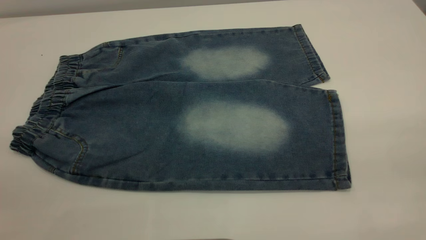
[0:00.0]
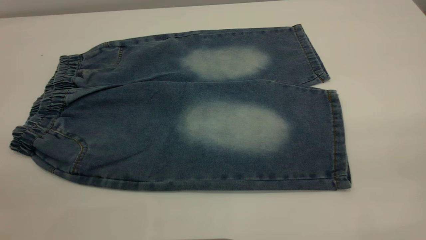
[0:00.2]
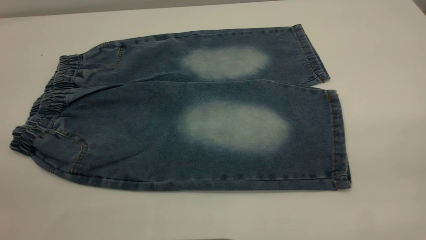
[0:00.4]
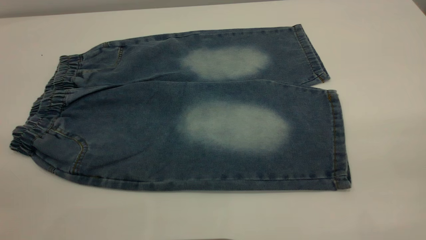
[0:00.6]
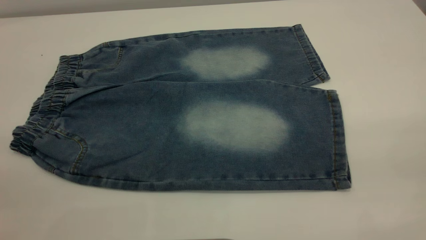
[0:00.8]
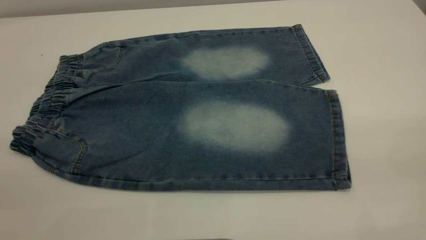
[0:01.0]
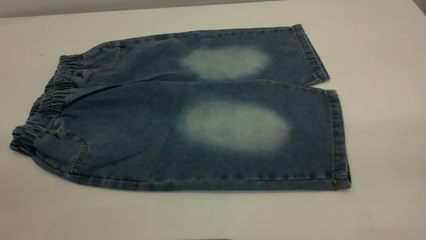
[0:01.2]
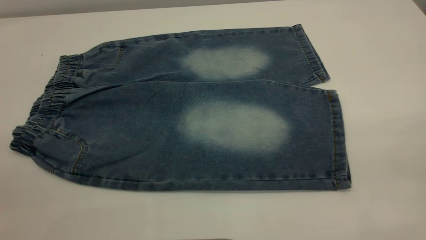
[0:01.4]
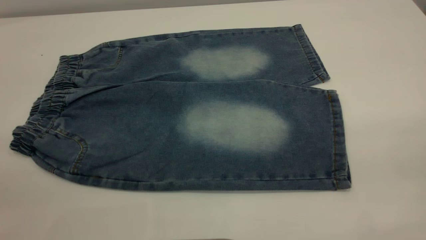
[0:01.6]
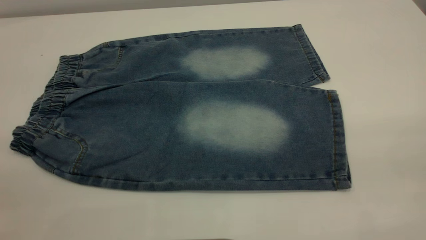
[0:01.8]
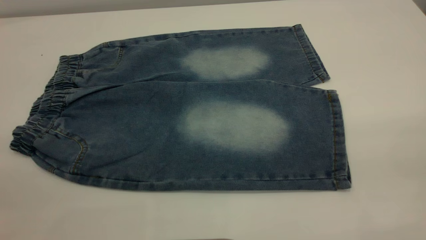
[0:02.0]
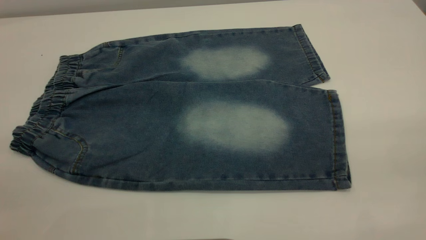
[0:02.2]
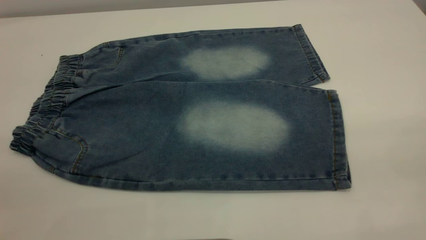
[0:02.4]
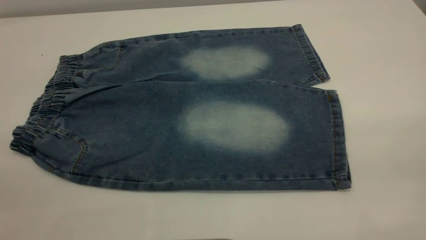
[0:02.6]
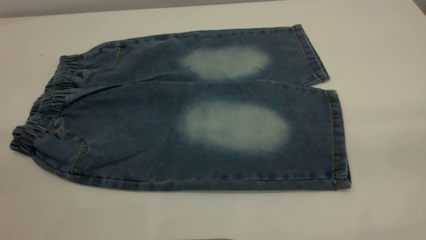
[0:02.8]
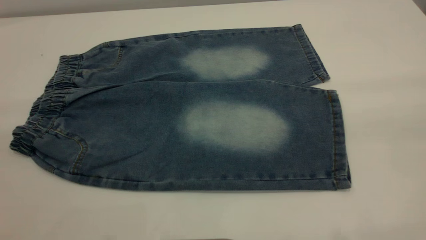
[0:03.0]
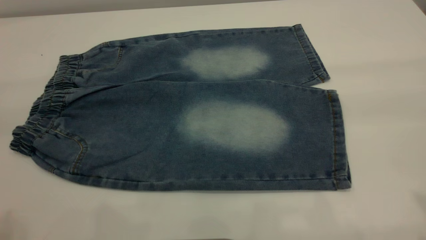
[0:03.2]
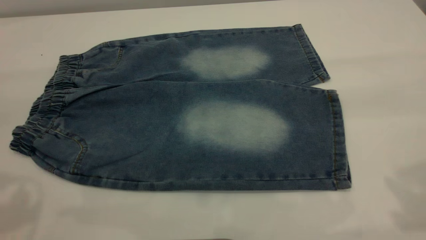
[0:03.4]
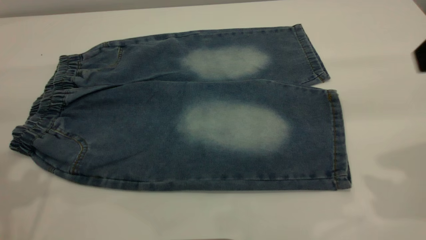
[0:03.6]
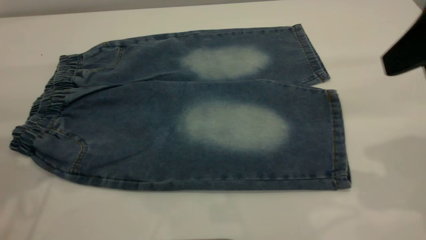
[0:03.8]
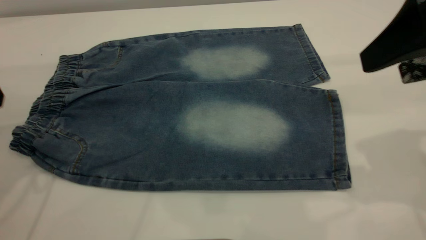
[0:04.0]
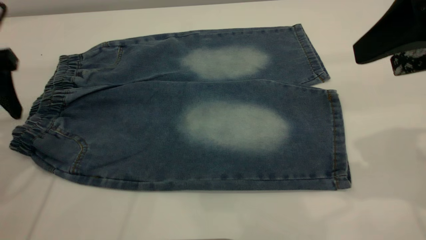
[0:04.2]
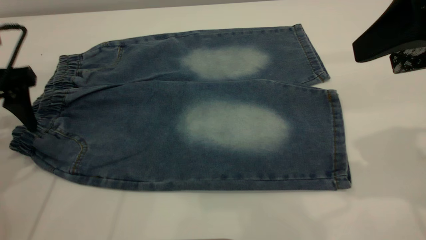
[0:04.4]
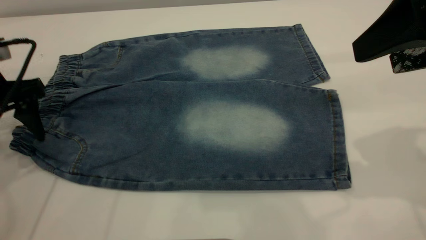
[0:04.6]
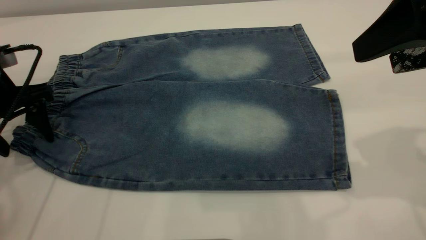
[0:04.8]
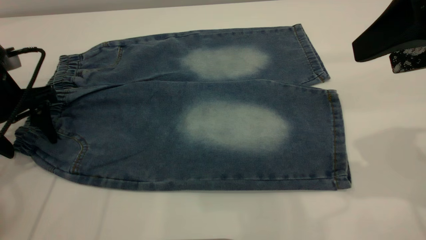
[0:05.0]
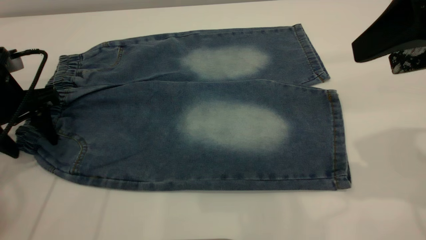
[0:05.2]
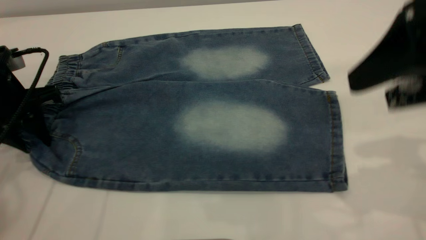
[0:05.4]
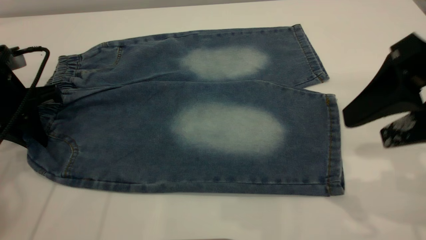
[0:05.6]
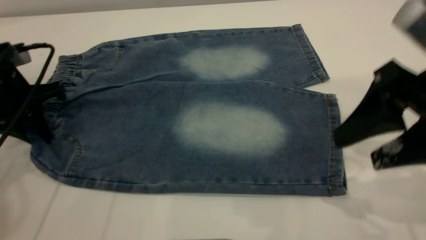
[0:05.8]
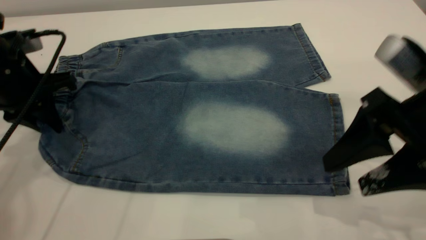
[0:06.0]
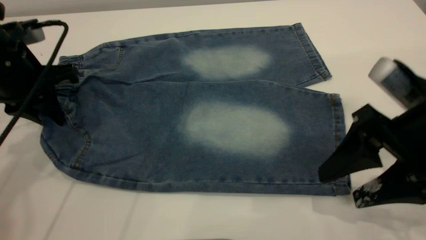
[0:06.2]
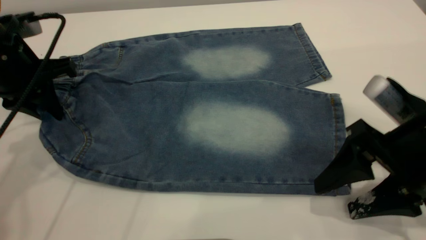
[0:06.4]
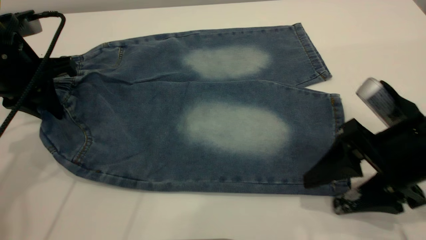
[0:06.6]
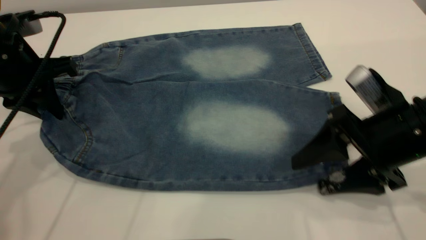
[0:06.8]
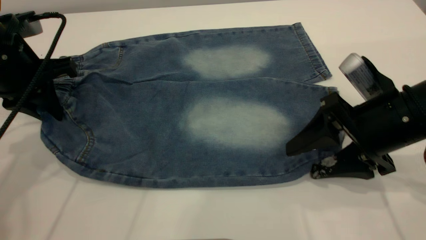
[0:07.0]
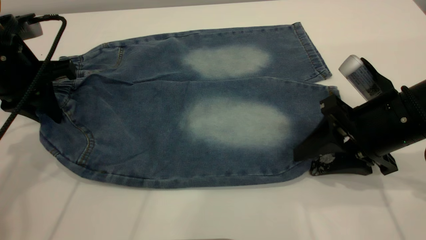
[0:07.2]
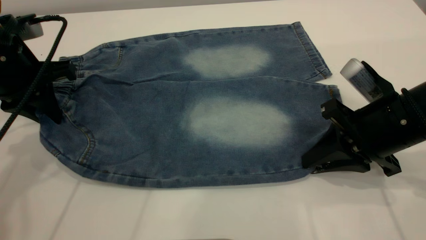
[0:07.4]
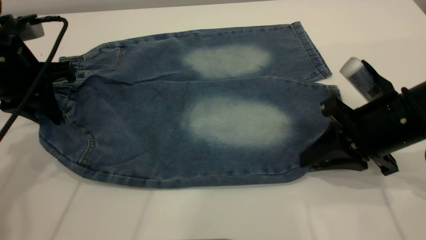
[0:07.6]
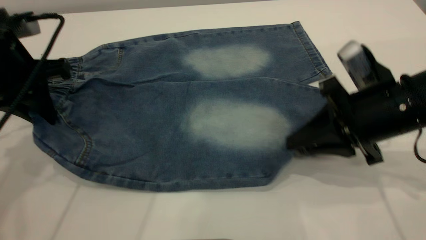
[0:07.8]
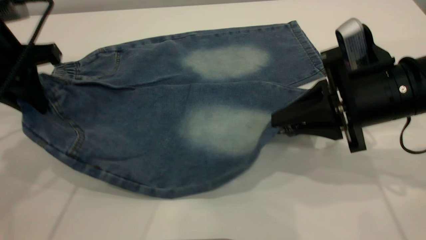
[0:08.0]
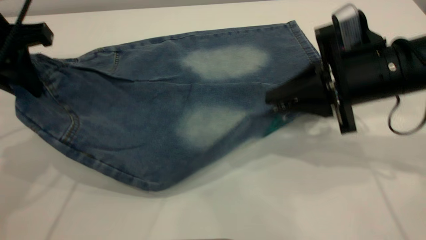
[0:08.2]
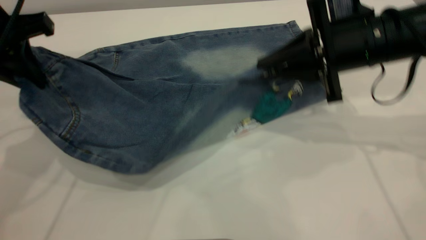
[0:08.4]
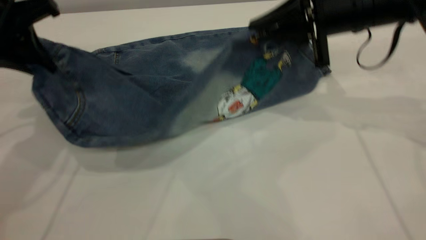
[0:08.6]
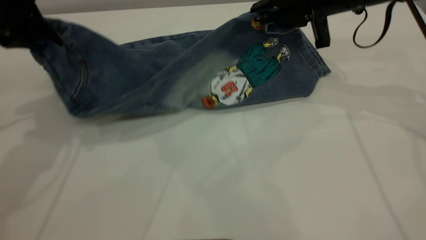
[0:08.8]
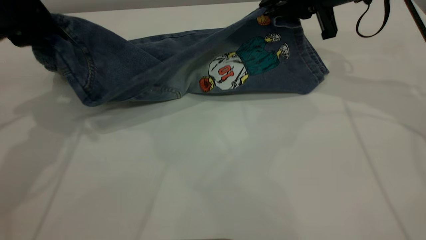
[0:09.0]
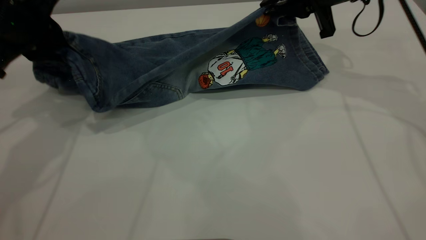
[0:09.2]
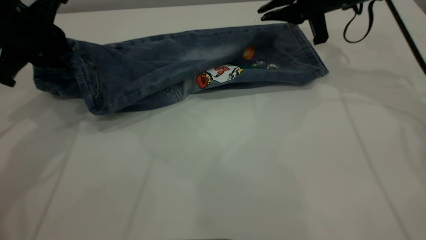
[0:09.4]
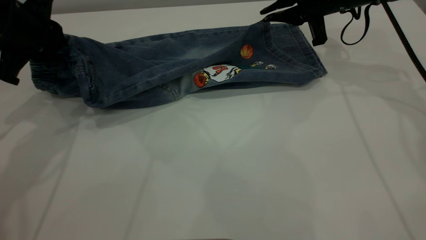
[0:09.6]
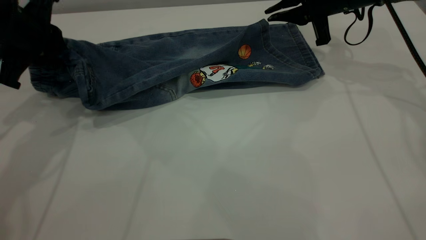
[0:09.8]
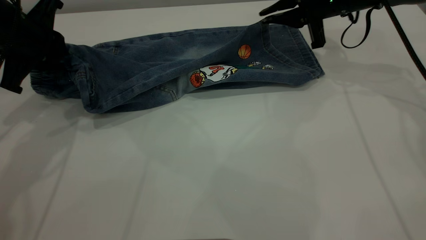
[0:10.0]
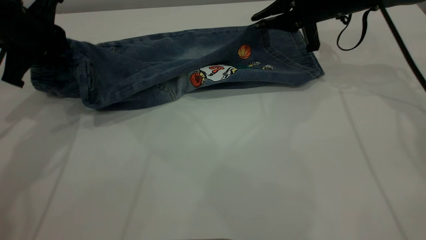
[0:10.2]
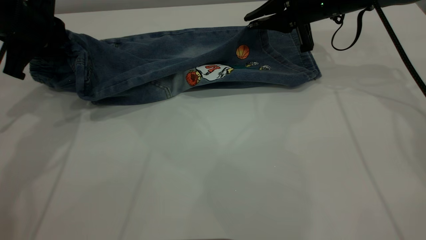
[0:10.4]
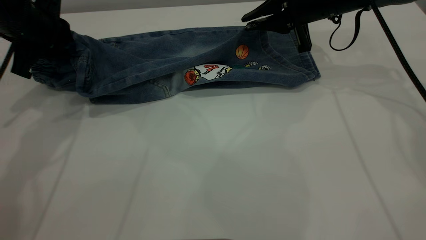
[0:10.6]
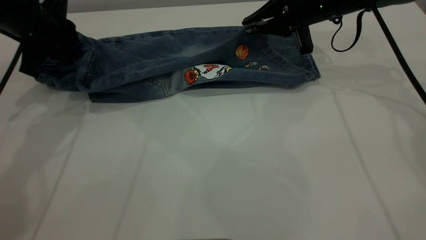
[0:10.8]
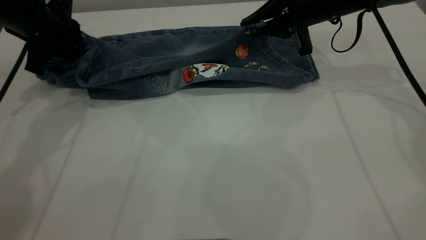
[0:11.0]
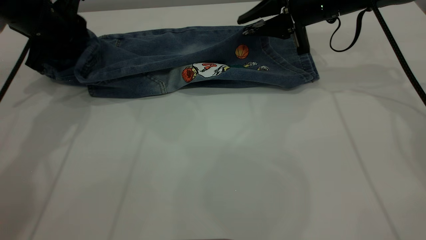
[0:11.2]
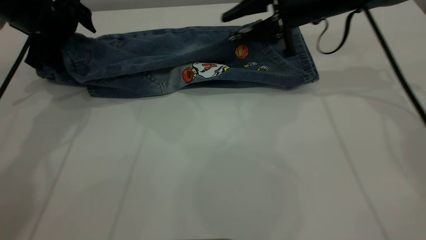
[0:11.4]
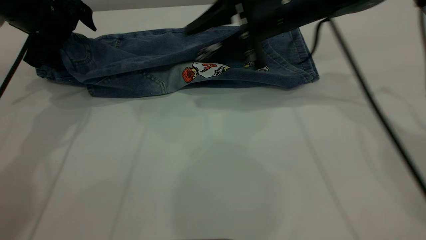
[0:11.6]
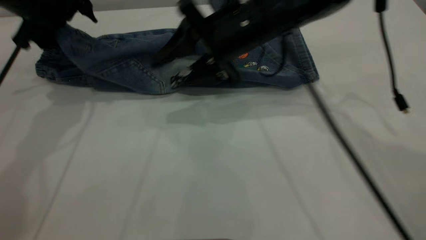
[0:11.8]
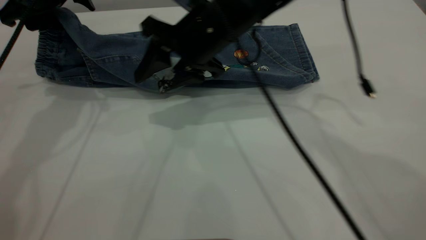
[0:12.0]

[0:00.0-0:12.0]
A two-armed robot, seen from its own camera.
0:00.0 to 0:01.6: The two grippers keep their place.
0:03.0 to 0:04.4: The left gripper shifts approximately 30 cm forward and downward, while the right gripper shifts roughly 15 cm forward and downward.
0:04.4 to 0:06.0: The left gripper closes. The right gripper moves downward, roughly 10 cm.
0:06.0 to 0:07.6: The right gripper travels downward and forward by roughly 10 cm, and closes up.
0:07.6 to 0:09.0: The left gripper goes roughly 5 cm upward; the right gripper shifts about 20 cm forward and upward.
0:09.0 to 0:10.4: The right gripper ends up roughly 5 cm from where it was. The left gripper shifts by about 5 cm.
0:10.4 to 0:12.0: The right gripper goes approximately 20 cm to the left, and opens. Meanwhile the left gripper shifts by approximately 5 cm, and opens its fingers.

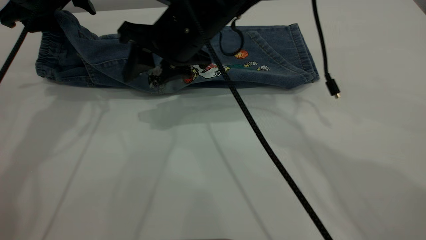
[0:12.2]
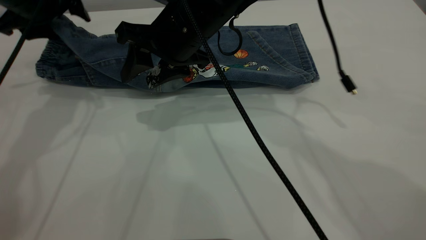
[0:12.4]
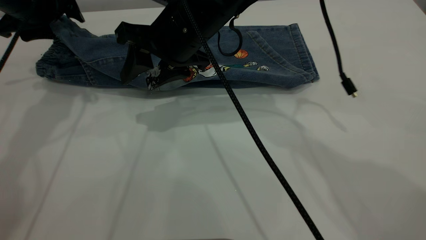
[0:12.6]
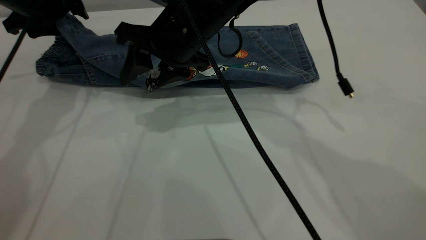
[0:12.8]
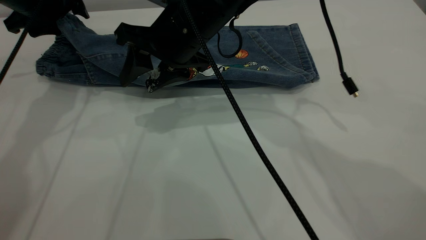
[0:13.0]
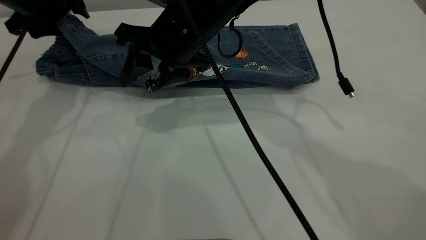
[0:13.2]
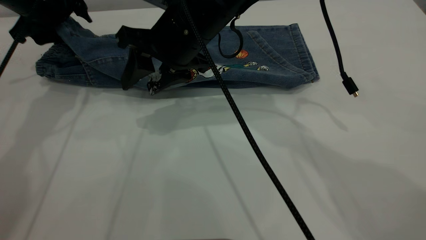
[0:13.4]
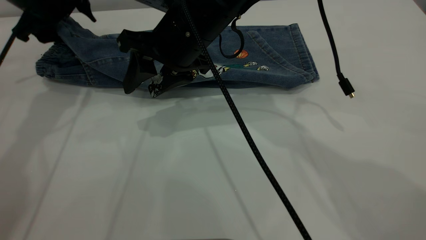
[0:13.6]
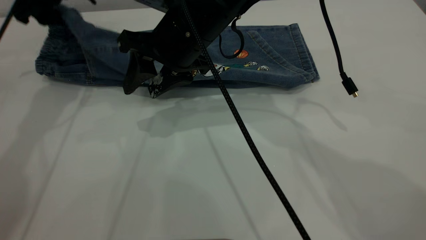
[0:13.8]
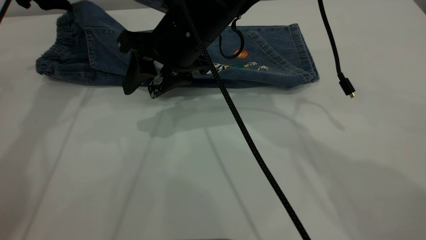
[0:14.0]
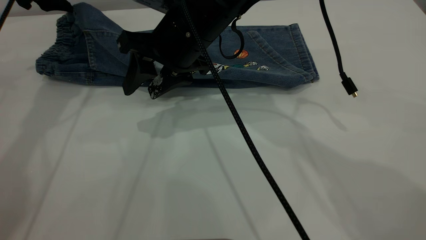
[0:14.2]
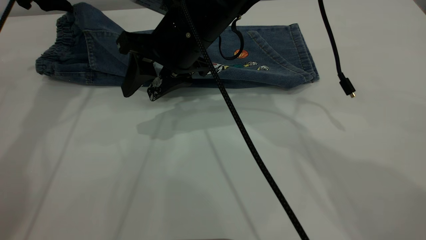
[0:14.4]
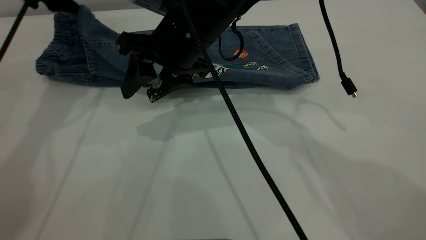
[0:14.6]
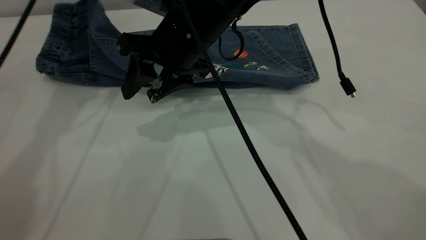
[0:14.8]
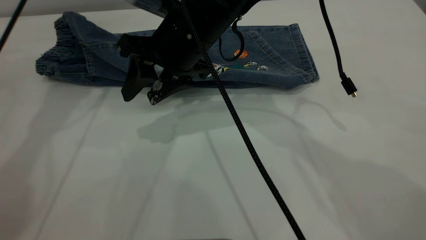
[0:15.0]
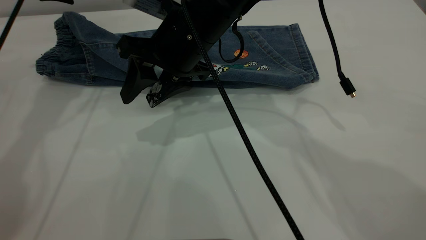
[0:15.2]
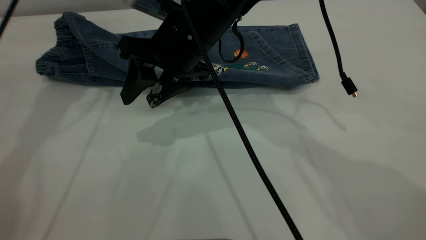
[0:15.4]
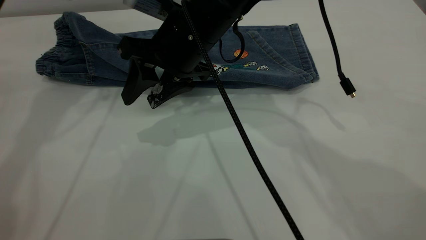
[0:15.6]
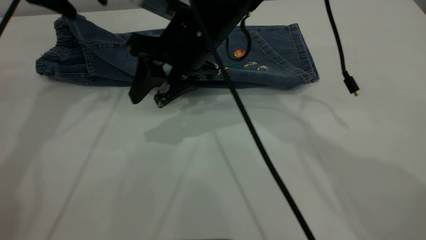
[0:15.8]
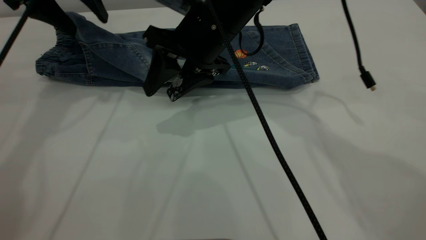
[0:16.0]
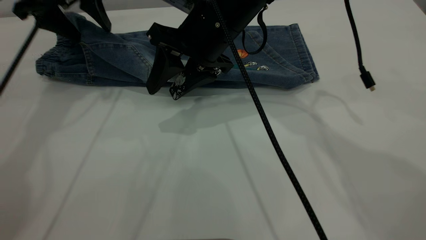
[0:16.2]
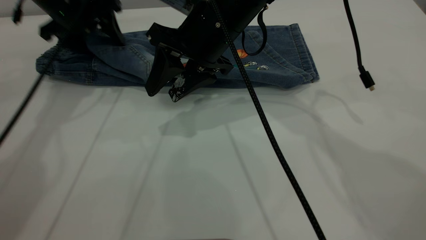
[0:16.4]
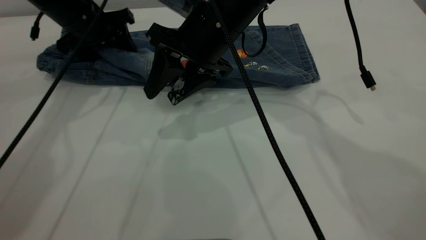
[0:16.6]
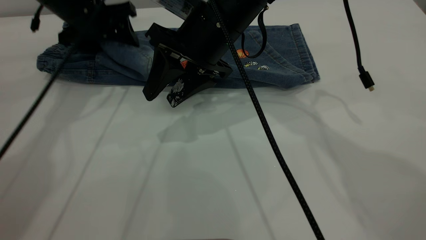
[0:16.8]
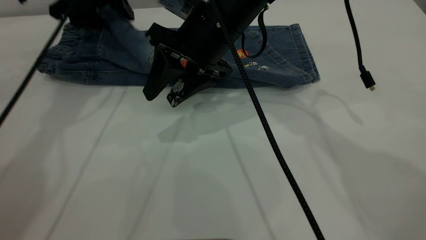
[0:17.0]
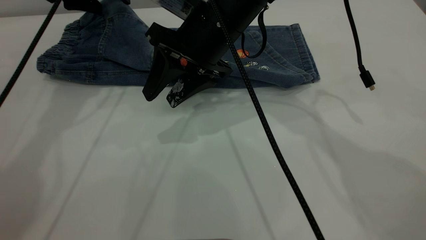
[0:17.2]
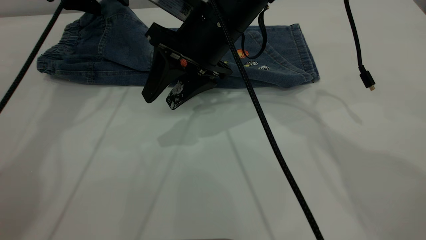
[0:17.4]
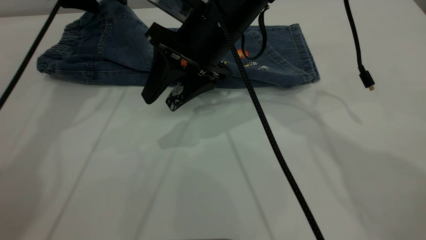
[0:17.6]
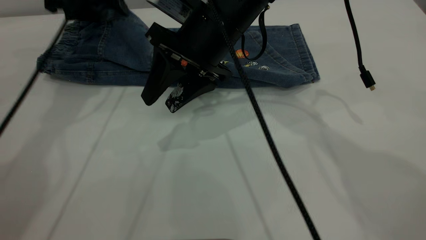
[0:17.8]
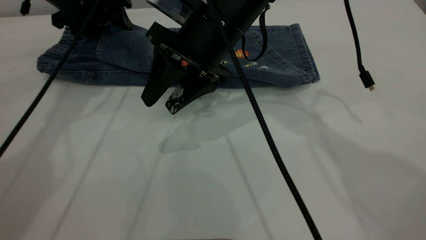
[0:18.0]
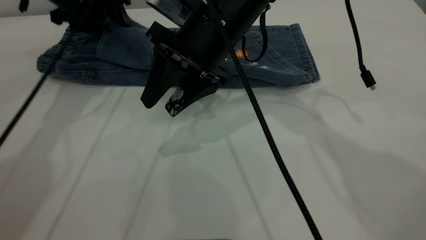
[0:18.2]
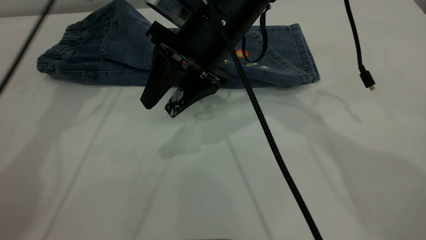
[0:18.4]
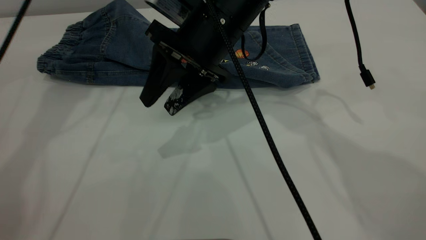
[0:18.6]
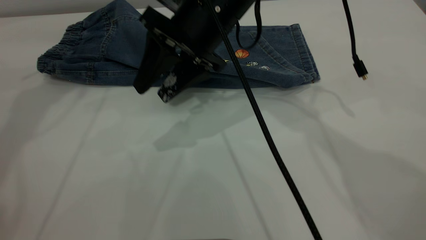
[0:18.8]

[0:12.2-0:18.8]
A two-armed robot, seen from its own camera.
0:12.2 to 0:13.8: The left gripper travels forward by roughly 5 cm.
0:13.8 to 0:15.4: The left gripper travels upward by some 5 cm.
0:15.4 to 0:17.2: The left gripper shifts some 5 cm downward.
0:17.2 to 0:18.8: The left gripper is displaced to the left and upward by approximately 10 cm.
